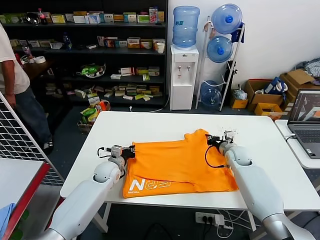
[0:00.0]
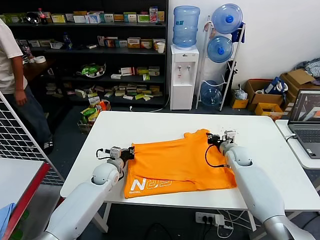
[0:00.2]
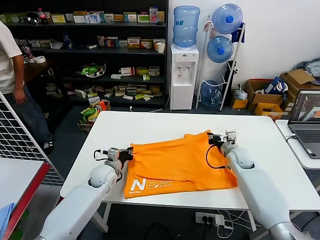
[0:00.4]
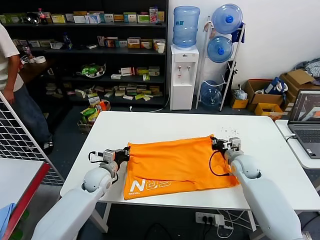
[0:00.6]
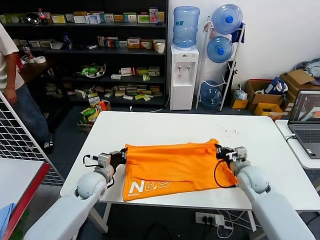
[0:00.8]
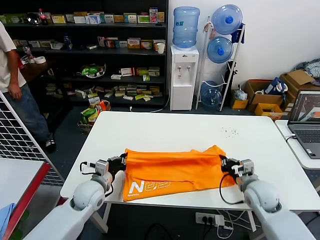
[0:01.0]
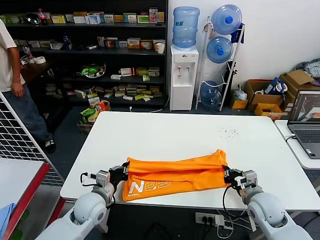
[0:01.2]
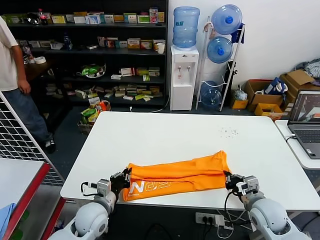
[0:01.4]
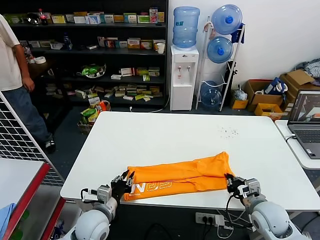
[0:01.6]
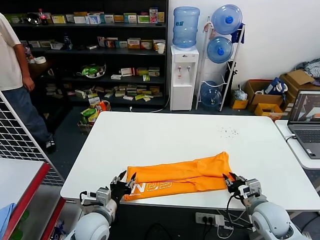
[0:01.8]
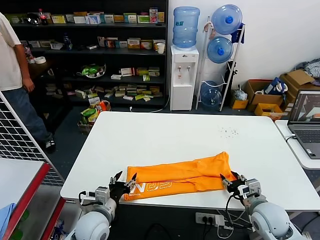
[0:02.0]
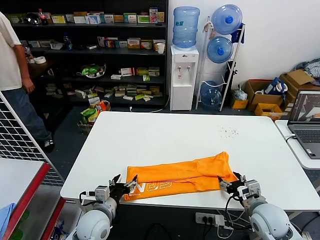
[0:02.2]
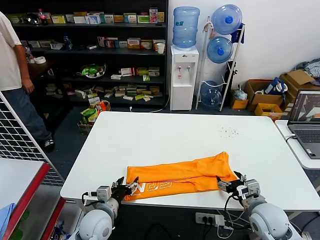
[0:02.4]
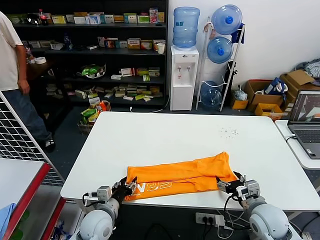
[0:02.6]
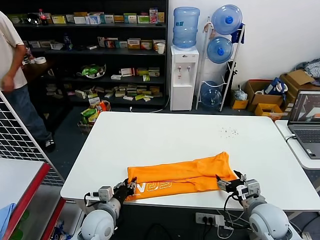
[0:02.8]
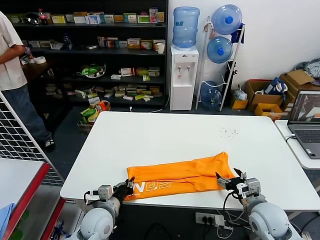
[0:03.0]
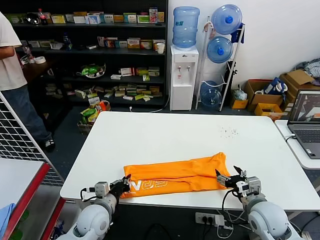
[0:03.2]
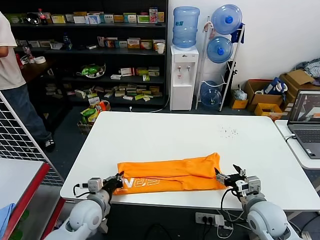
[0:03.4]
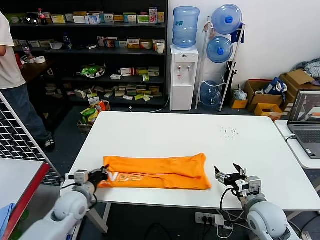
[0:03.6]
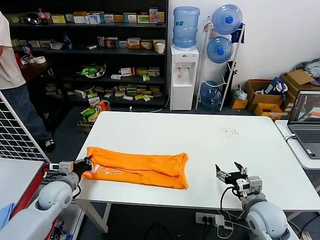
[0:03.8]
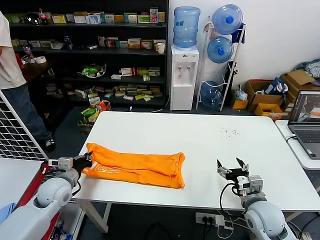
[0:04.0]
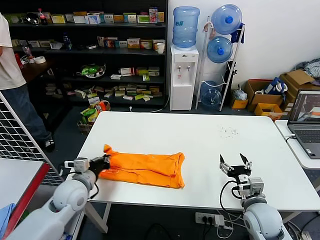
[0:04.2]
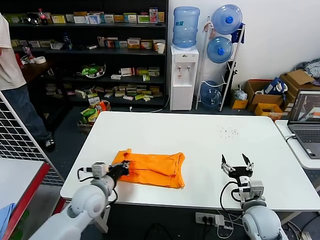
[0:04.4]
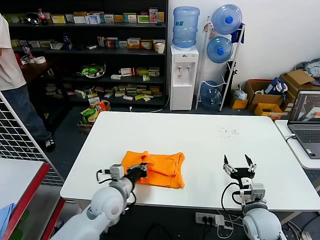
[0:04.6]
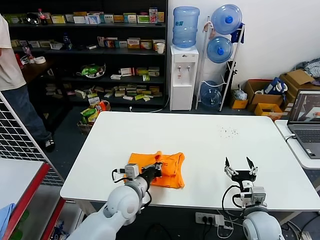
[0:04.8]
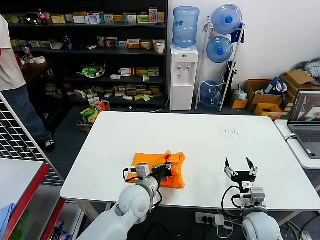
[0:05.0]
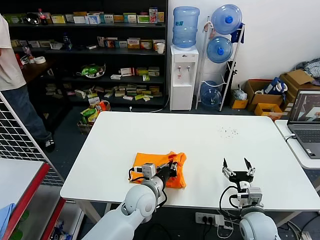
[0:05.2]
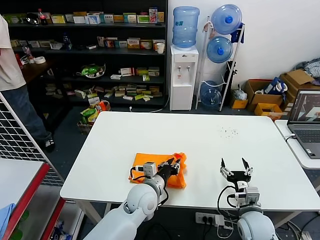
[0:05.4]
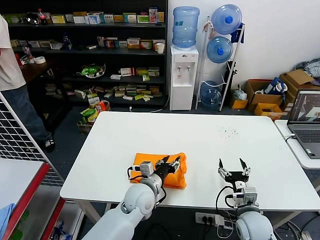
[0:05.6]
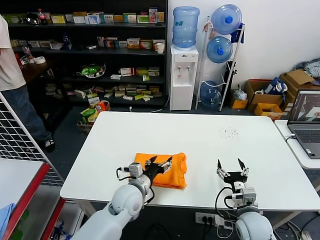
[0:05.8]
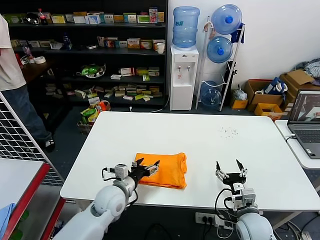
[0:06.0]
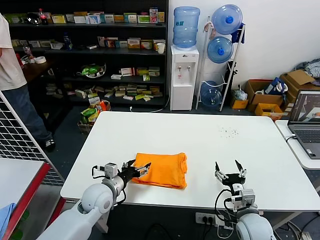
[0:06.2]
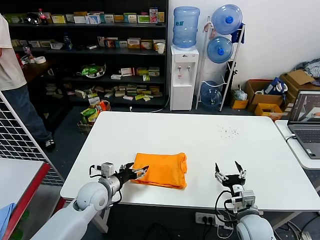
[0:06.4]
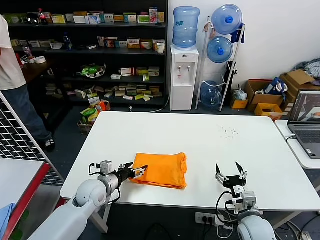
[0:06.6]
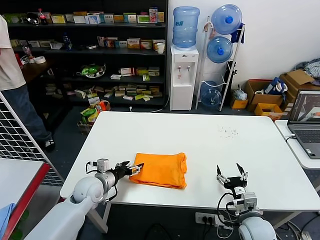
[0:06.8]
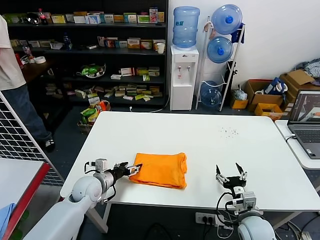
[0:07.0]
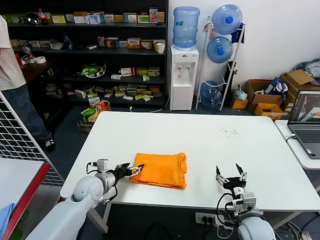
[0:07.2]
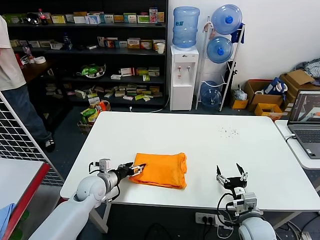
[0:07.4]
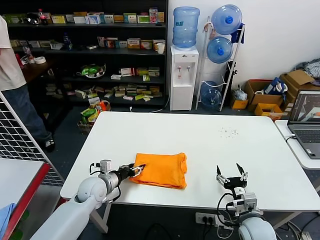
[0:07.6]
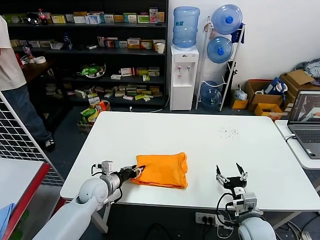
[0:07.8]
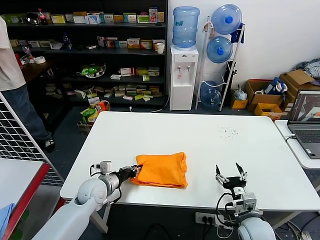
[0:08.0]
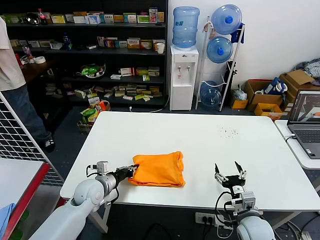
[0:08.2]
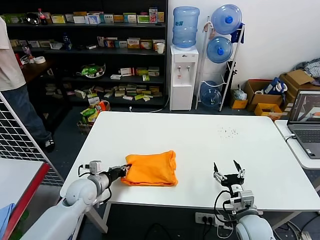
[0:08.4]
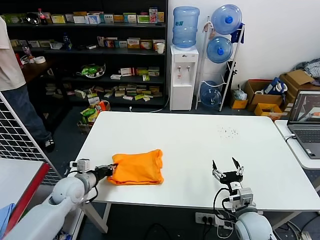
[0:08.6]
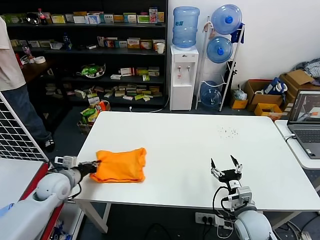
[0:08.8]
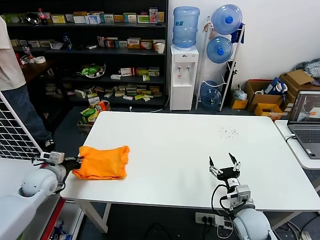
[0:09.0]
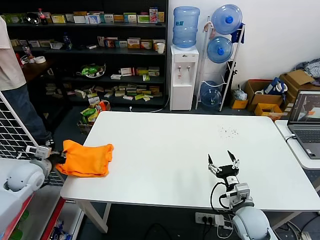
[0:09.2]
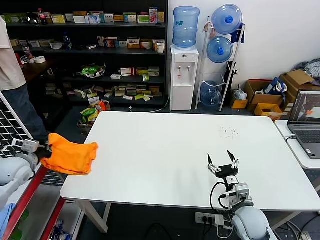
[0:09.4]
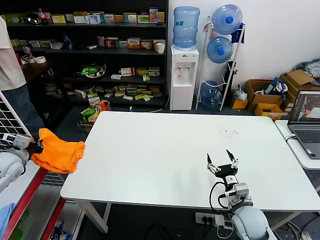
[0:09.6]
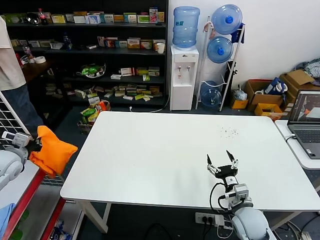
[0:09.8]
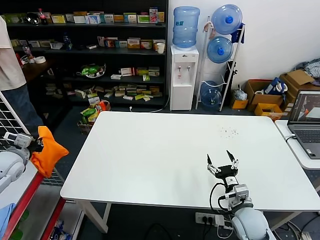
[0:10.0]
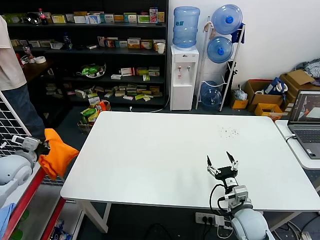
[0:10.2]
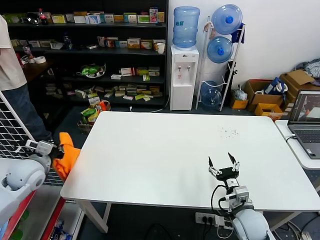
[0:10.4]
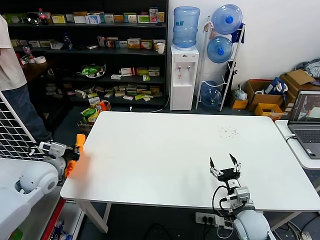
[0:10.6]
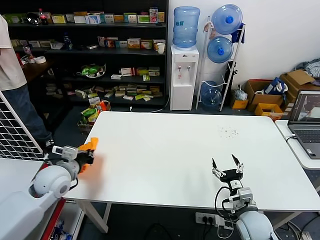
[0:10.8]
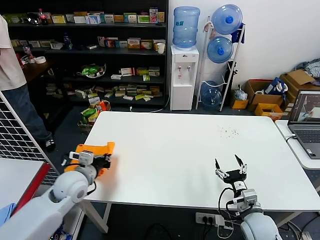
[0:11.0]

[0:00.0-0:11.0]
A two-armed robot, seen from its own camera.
Task of the whole recording: fold and organize the clothes.
Step, 0:00.0 to 0:01.6: use both grippers to drag the upper edge of the fabric backward and fold it over the lower edge.
Step, 0:01.8 to 0:02.8: use the left gripper to clamp the left edge of the fabric.
Step, 0:03.2 to 0:05.2: use the left gripper to drag the left edge of the fabric to the left and folds it over the right edge.
0:00.0 to 0:01.6: The two grippers go roughly 20 cm backward.
0:01.6 to 0:03.2: The left gripper opens and closes again; the right gripper opens.
0:03.2 to 0:04.8: The left gripper is displaced to the right and upward by some 10 cm.
0:04.8 to 0:06.2: The left gripper travels to the left by about 5 cm, and opens.
0:06.2 to 0:07.8: The left gripper moves approximately 5 cm, and closes its fingers.
0:07.8 to 0:09.4: The left gripper moves to the left and upward, some 25 cm, and closes up.
0:09.4 to 0:11.0: The left gripper heads to the right, covering about 15 cm.

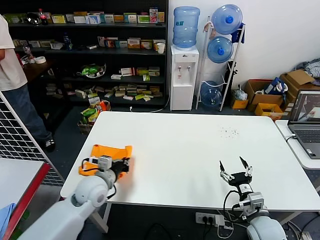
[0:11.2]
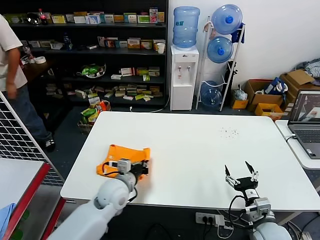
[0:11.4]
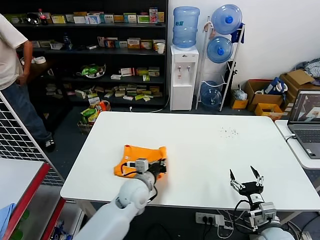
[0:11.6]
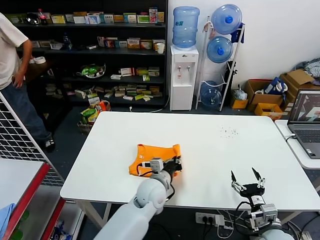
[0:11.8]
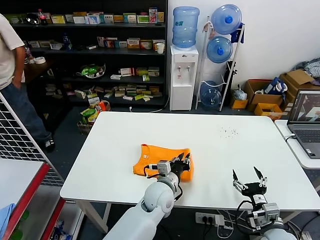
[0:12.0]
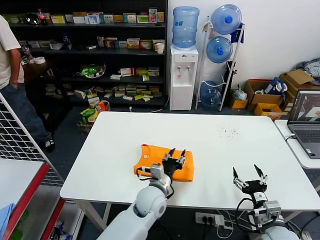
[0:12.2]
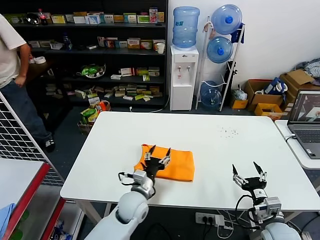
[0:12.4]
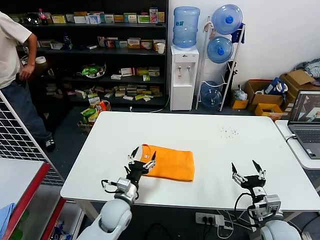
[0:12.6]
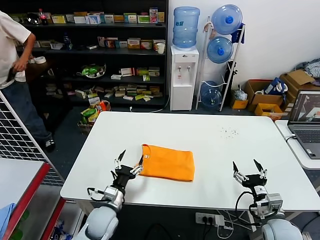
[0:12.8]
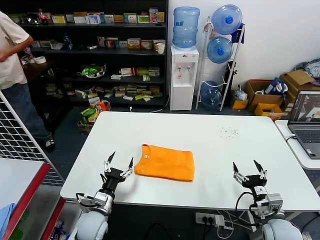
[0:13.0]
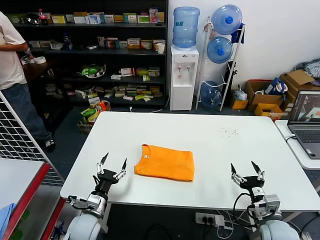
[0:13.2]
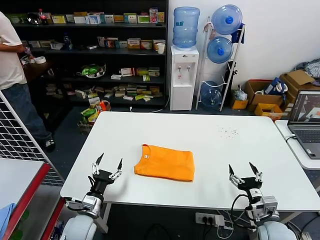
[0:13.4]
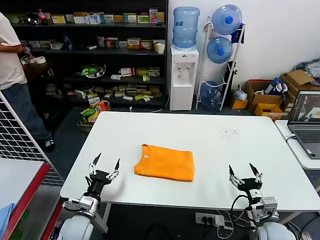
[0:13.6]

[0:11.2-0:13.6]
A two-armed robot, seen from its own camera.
Task of the whole recording: fold and organize the clothes.
0:11.2 to 0:12.4: The left gripper moves to the right and downward, approximately 20 cm, and opens its fingers.
0:12.4 to 0:13.6: The left gripper shifts some 20 cm to the left.

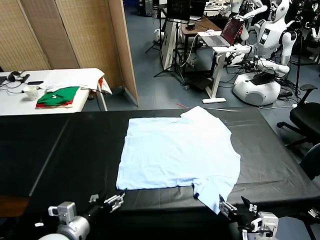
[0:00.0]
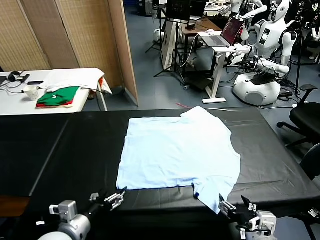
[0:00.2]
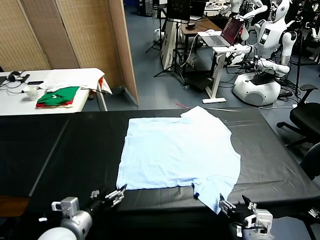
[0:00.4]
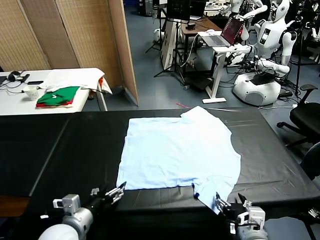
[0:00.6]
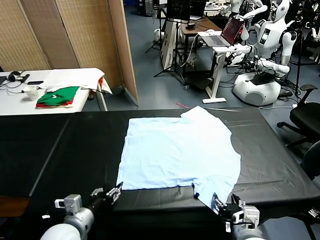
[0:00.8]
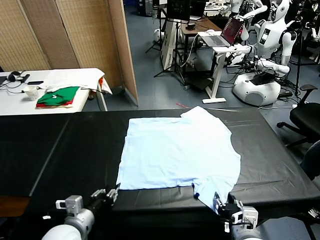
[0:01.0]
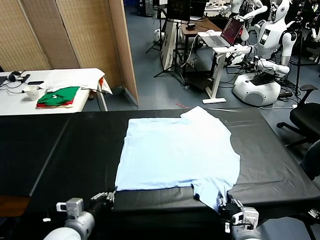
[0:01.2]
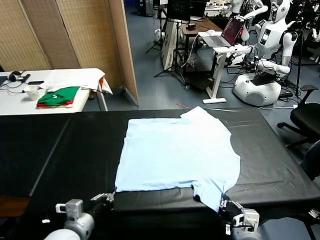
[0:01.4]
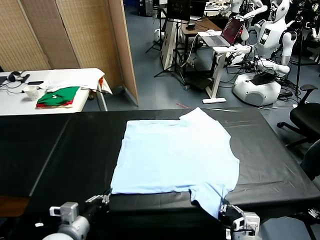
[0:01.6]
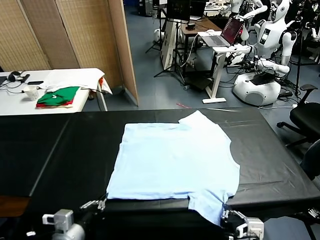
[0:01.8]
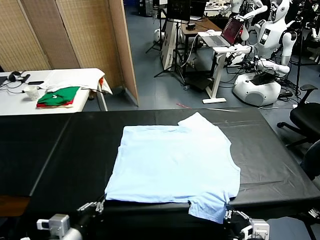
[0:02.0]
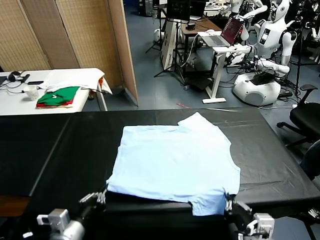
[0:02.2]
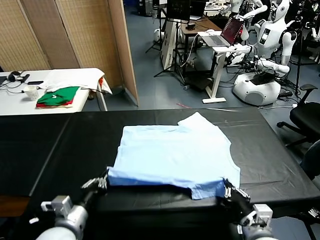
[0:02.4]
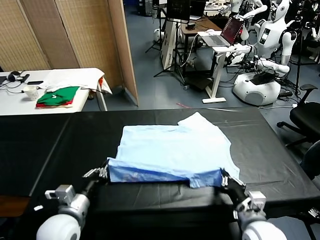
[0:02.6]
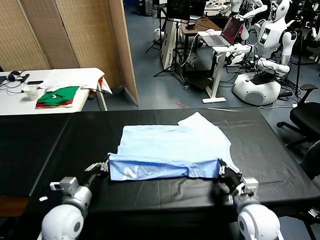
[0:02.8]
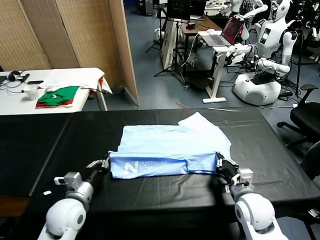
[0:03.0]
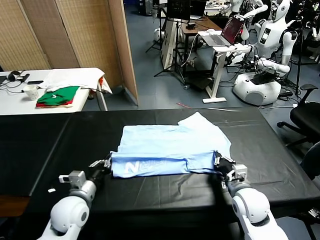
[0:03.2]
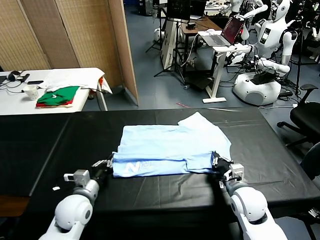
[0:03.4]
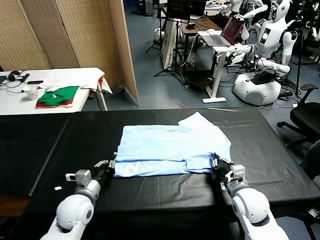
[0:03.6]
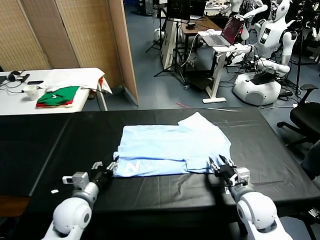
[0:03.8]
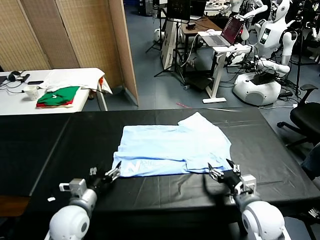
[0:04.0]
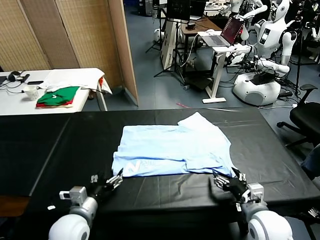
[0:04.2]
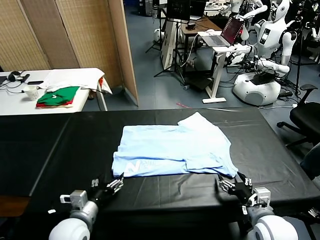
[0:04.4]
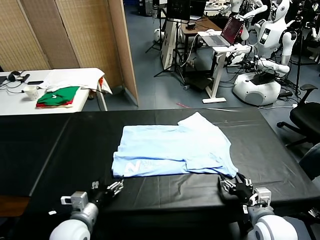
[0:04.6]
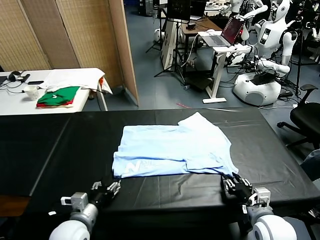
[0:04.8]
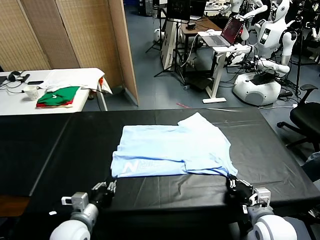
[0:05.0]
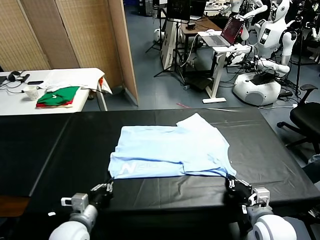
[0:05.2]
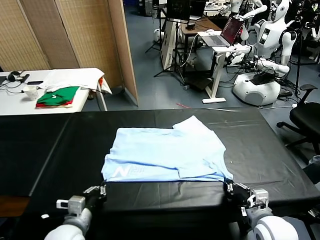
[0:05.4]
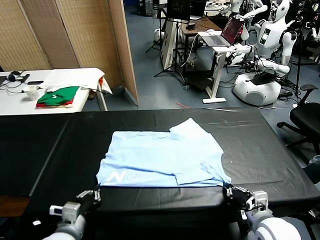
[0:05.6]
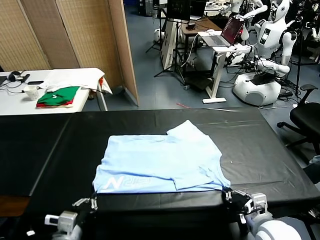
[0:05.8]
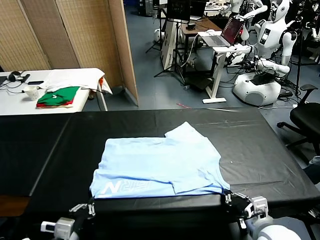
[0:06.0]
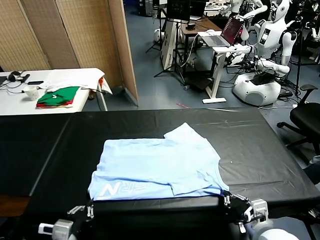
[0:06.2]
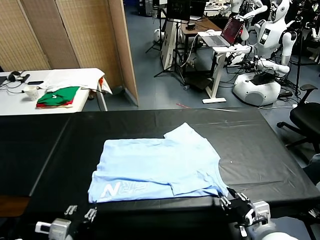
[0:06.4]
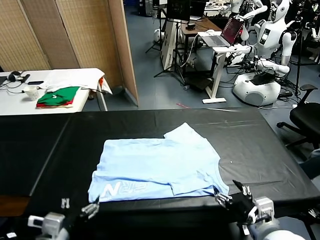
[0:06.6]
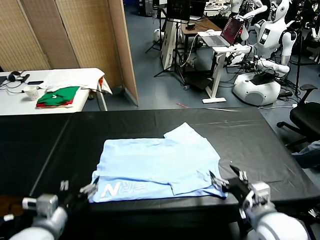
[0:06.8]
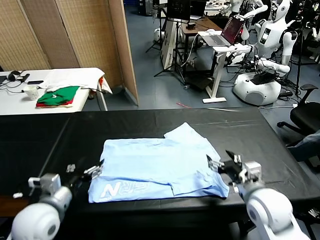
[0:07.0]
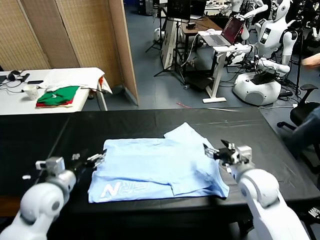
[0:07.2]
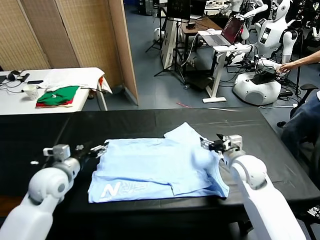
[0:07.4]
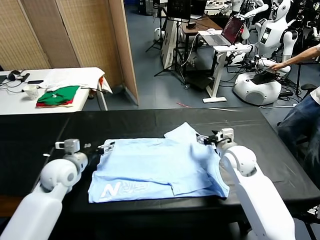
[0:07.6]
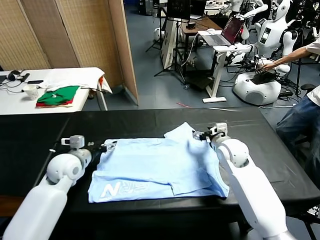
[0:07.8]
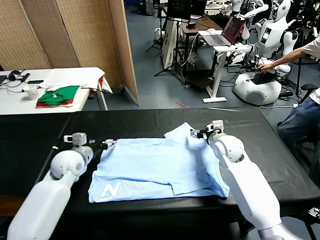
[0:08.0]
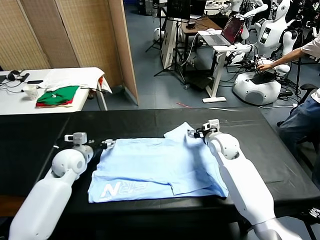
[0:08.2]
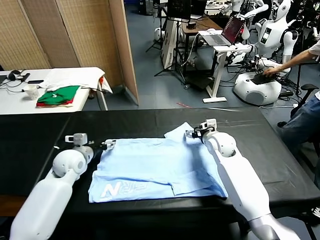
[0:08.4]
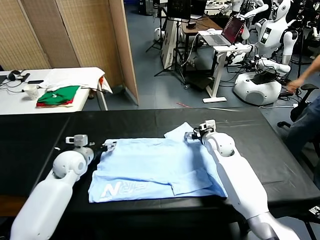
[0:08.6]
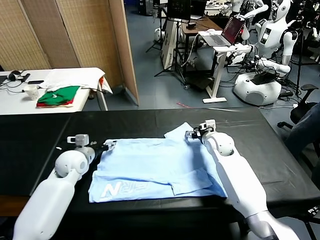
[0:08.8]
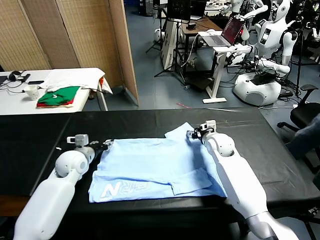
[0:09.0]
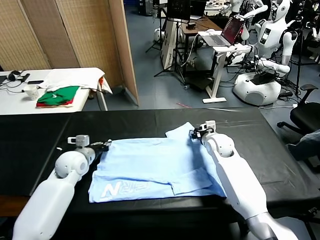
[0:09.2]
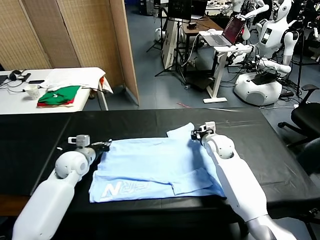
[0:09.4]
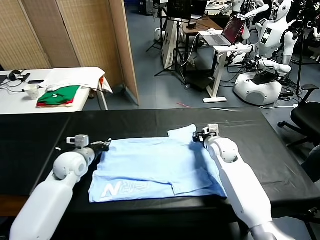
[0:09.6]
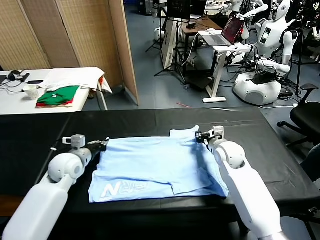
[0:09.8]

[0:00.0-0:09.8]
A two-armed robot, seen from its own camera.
Task of the whole recording: fold and organize the clothes.
Step, 0:00.0 to 0:01.4: use both grippers simultaneously to clamp the lower edge of the clothing fabric.
Step, 0:01.6 to 0:03.6: use both grippers to drag the lower edge of the fabric forward and fold it over the upper edge.
Step, 0:04.0 to 0:06.4: Drag the clothes downward with both gripper.
Step, 0:06.6 to 0:09.2: use both grippers simultaneously to clamp the upper edge of the clothing fabric.
0:01.4 to 0:02.8: The left gripper goes approximately 10 cm forward; the right gripper travels forward by some 15 cm.
0:02.8 to 0:04.2: The left gripper opens its fingers. The right gripper is displaced backward by some 10 cm, and opens up.
0:04.2 to 0:05.6: The right gripper closes up; the left gripper moves backward, about 5 cm, and closes.
0:05.6 to 0:07.0: The right gripper goes about 15 cm forward, and opens up. Meanwhile the left gripper goes about 10 cm forward and upward, and opens up.
0:07.0 to 0:08.4: The grippers both shift forward by some 15 cm.
0:08.4 to 0:09.8: The right gripper goes about 10 cm backward, and closes up. Meanwhile the left gripper closes.
